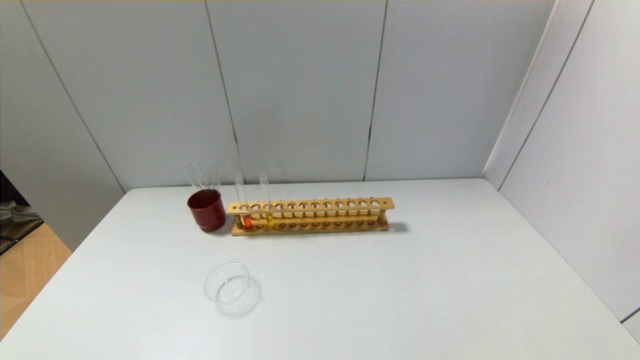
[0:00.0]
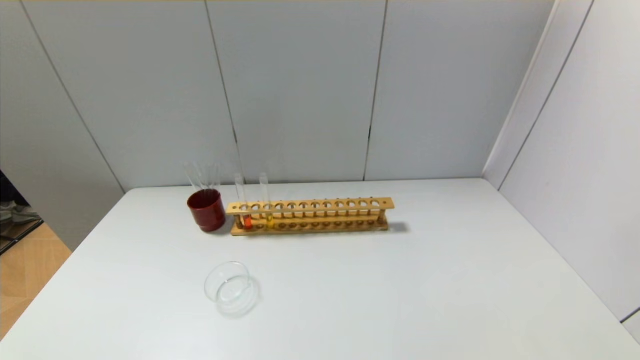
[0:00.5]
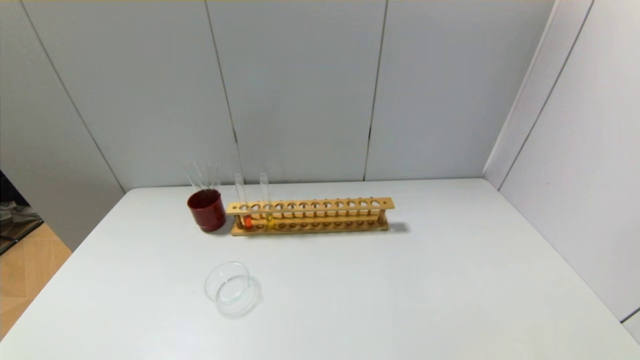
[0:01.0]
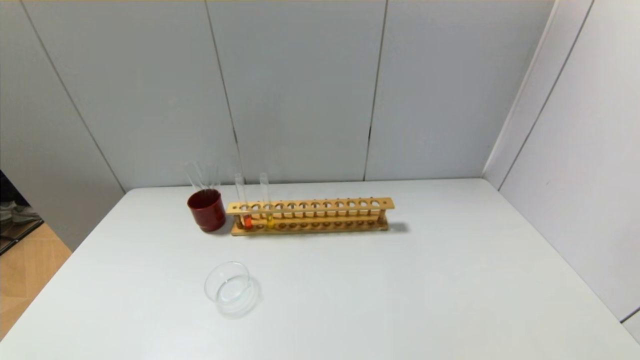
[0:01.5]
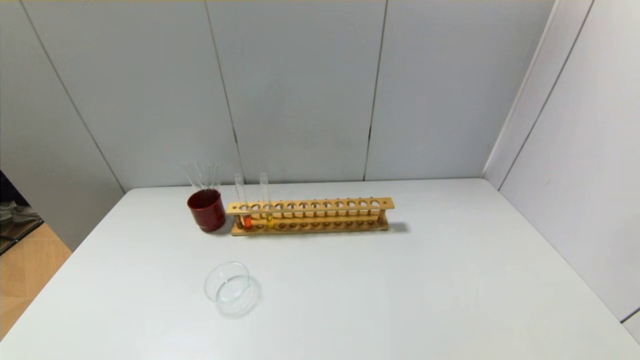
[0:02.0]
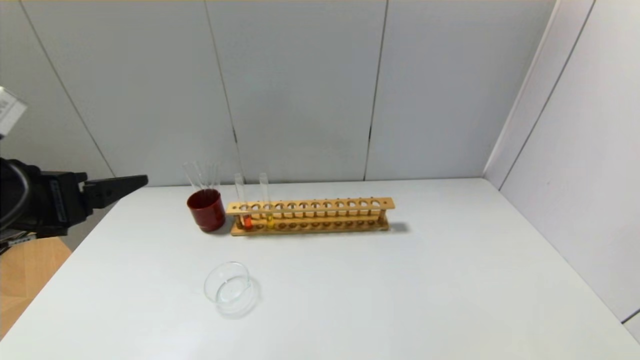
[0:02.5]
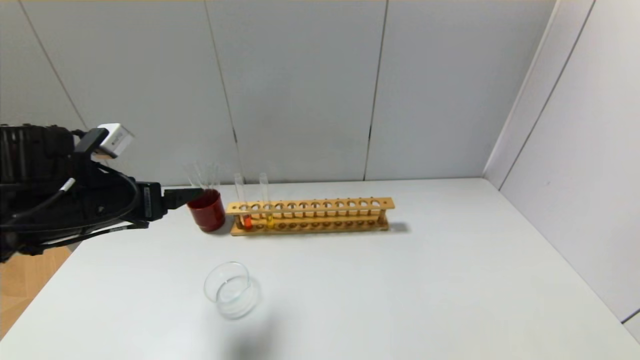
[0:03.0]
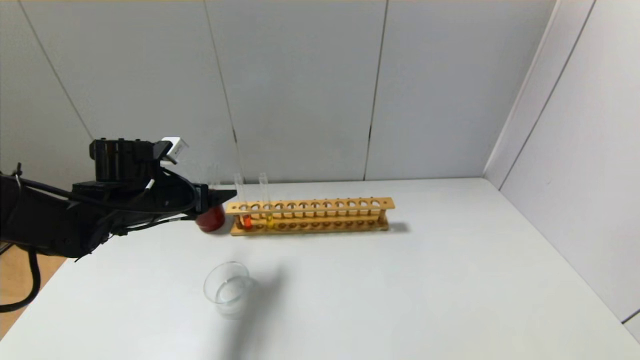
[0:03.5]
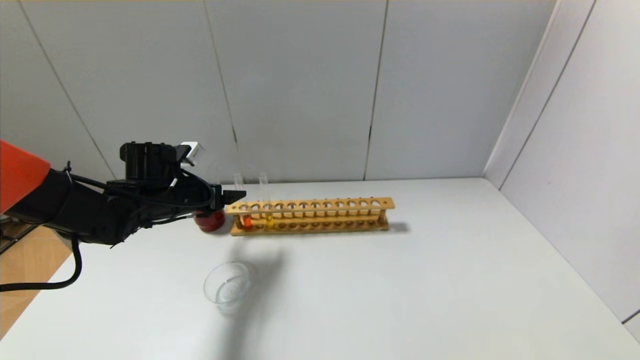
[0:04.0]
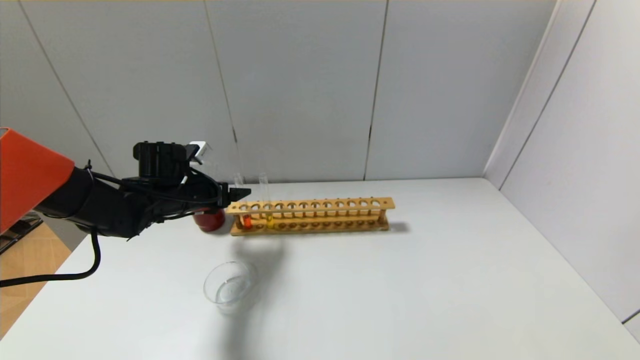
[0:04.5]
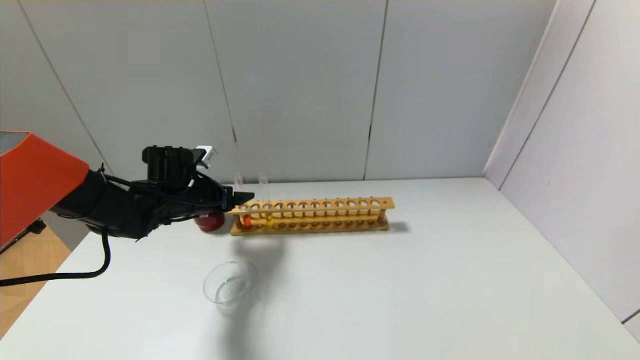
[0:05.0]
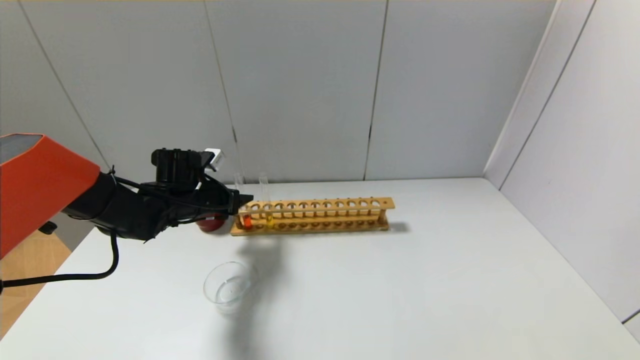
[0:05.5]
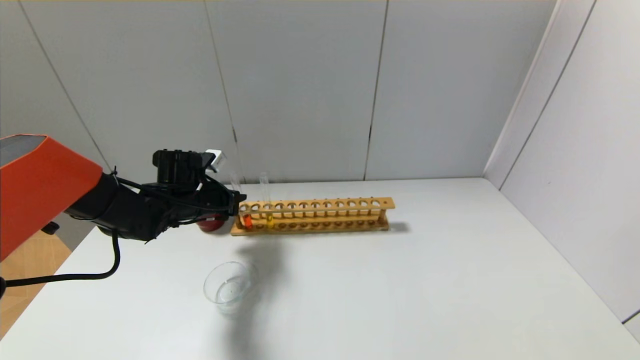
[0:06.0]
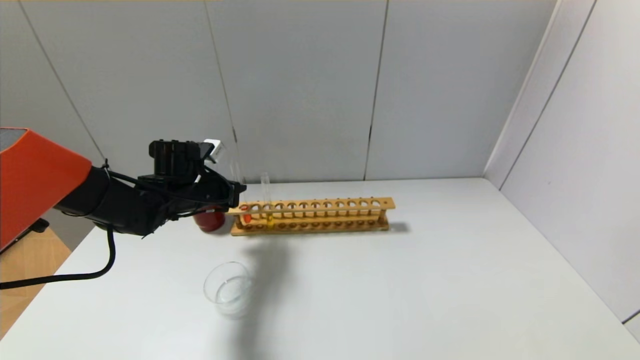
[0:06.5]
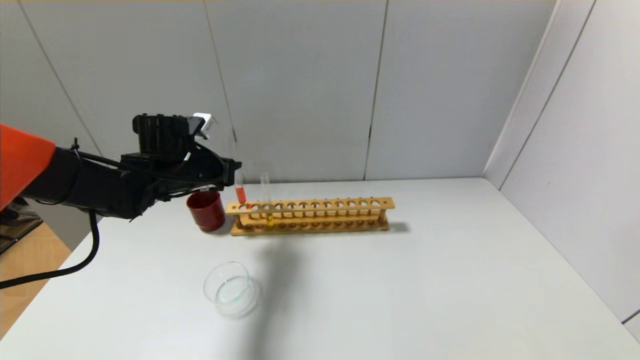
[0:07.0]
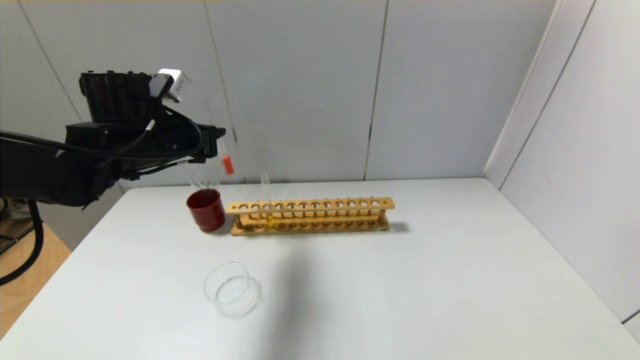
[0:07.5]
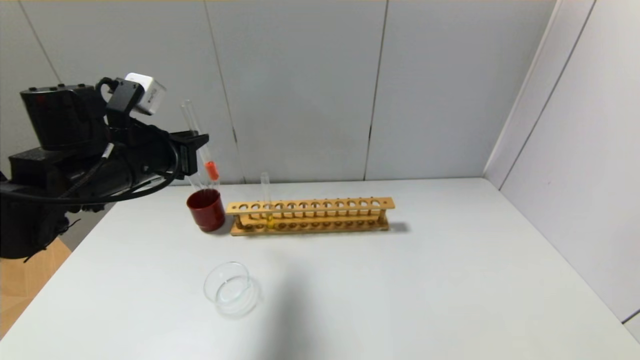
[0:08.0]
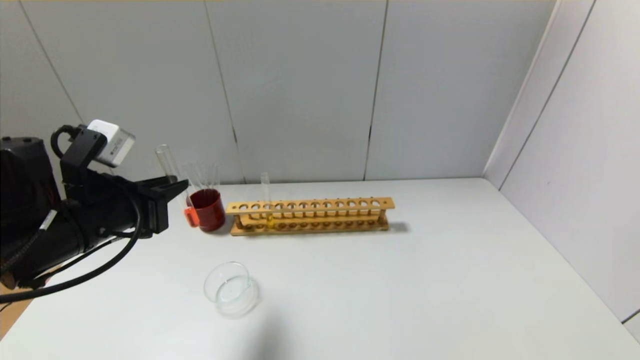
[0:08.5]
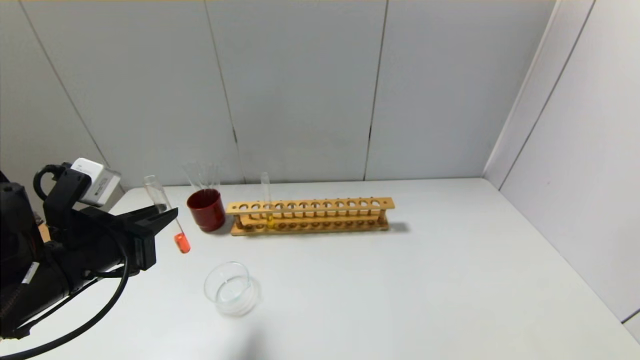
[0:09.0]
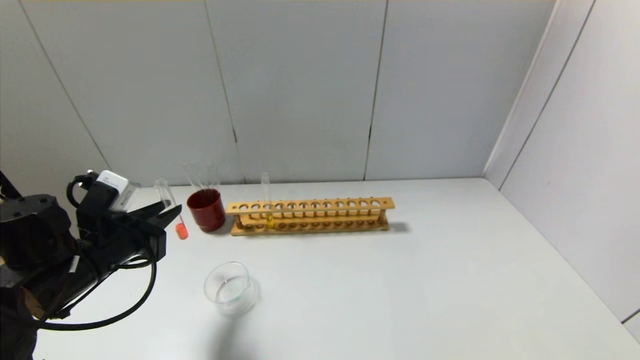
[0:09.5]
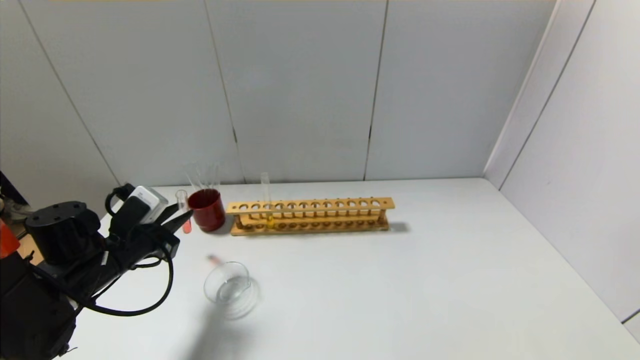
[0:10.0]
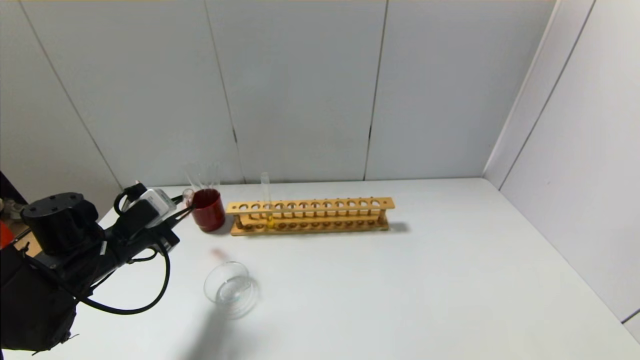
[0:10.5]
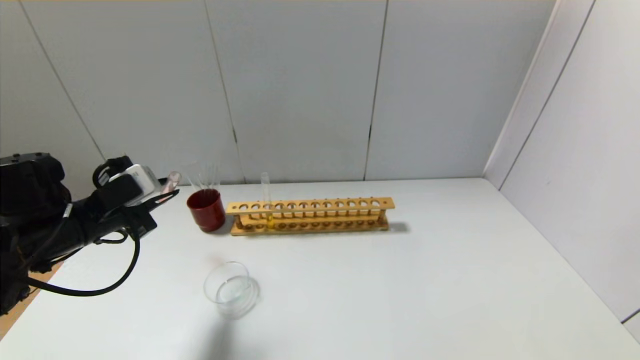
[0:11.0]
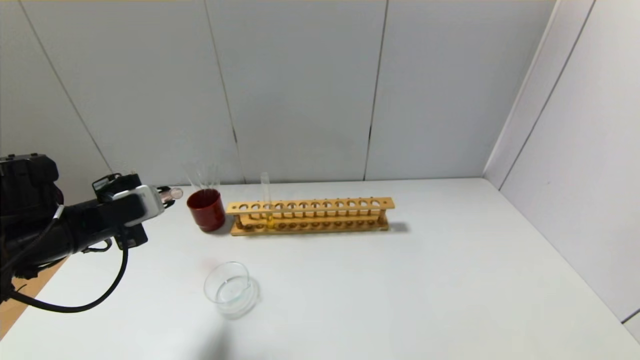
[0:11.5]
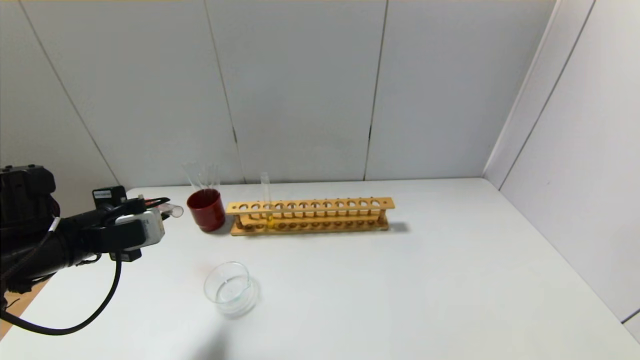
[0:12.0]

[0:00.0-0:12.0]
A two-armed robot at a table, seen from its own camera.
Step, 0.0 to 5.5 s: Grasp the red reagent with the left gripper.
2.0 to 4.0 s: The left gripper moves forward and downward, roughly 35 cm.
4.0 to 6.0 s: The left gripper closes its fingers.
6.0 to 8.0 s: The left gripper moves upward and backward, approximately 15 cm.
8.0 to 10.0 s: The left gripper goes approximately 15 cm downward.
10.0 to 12.0 s: The left gripper travels upward by approximately 5 cm.

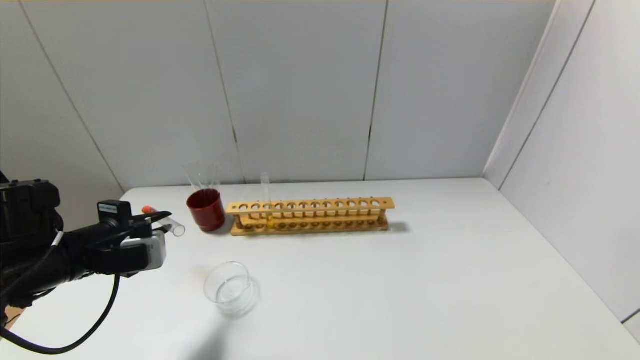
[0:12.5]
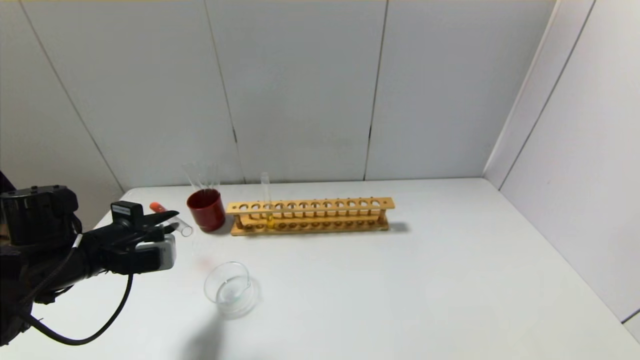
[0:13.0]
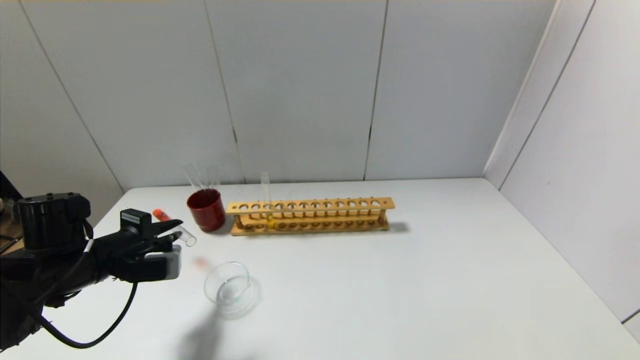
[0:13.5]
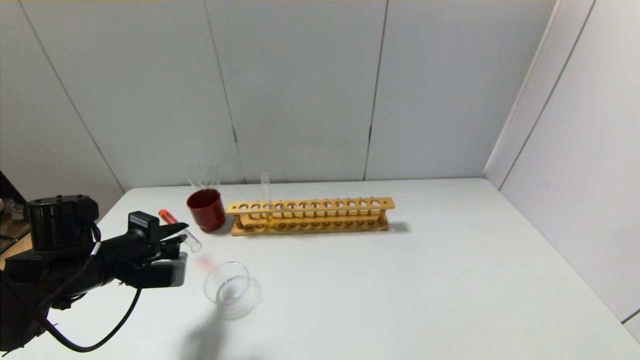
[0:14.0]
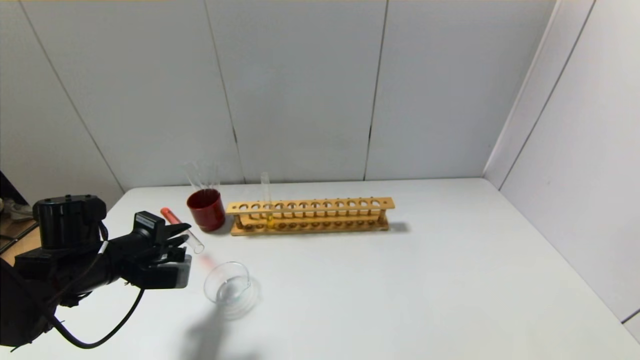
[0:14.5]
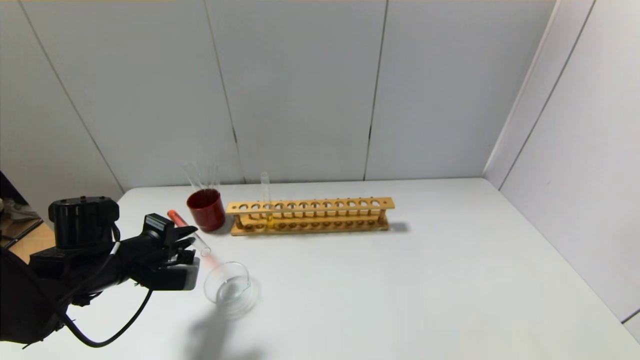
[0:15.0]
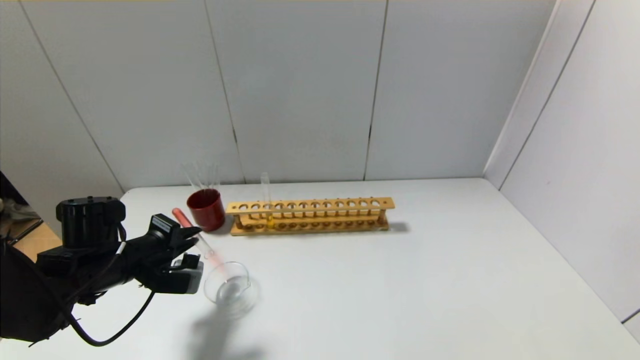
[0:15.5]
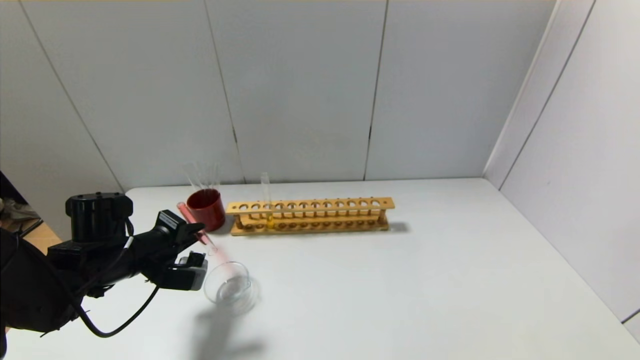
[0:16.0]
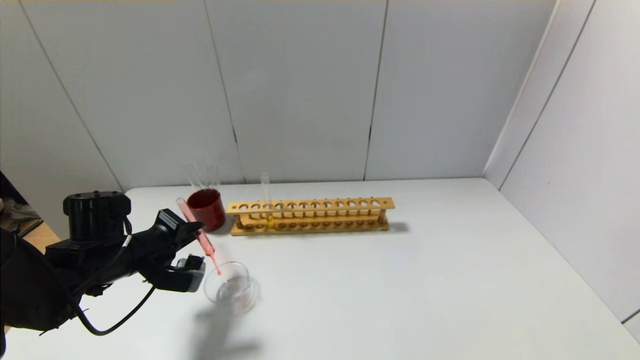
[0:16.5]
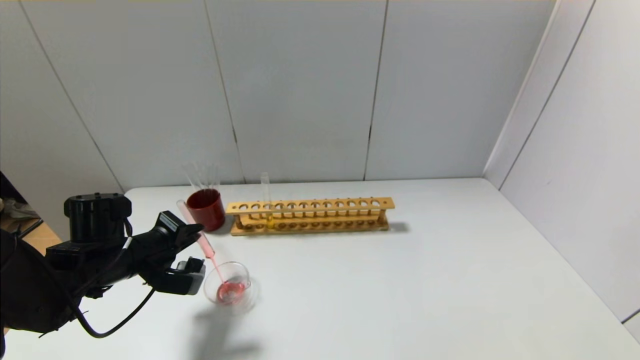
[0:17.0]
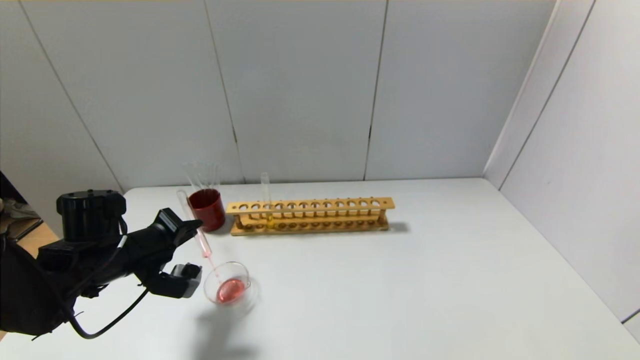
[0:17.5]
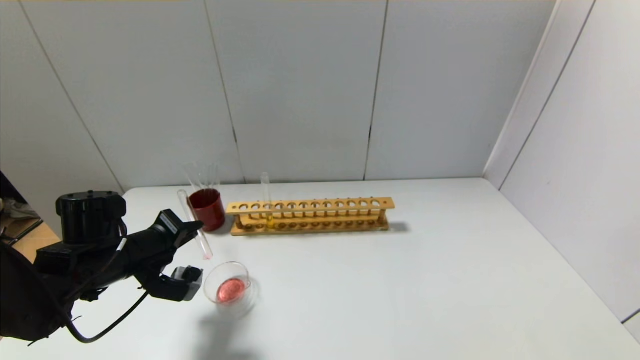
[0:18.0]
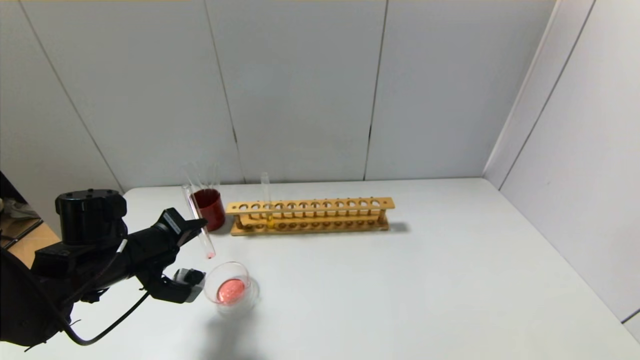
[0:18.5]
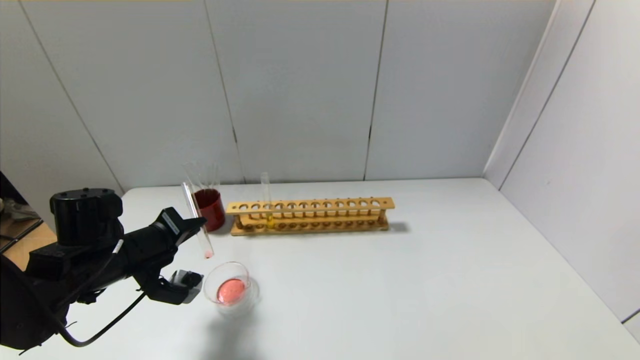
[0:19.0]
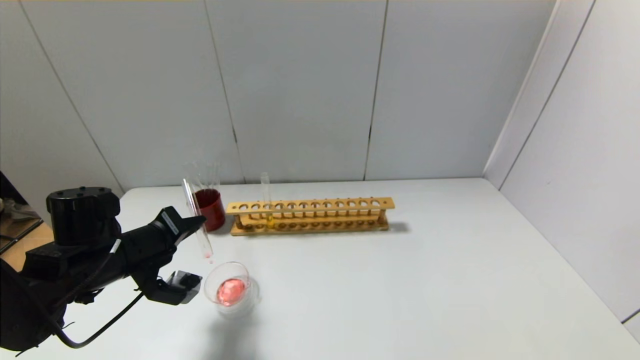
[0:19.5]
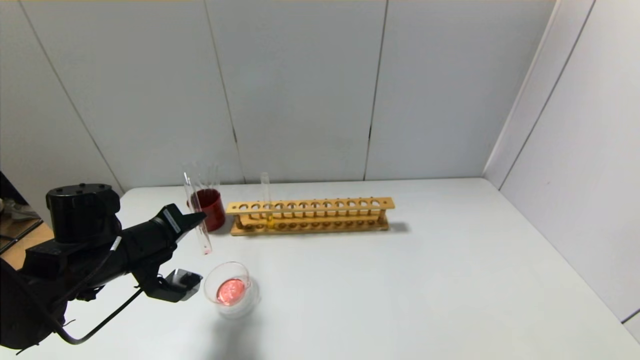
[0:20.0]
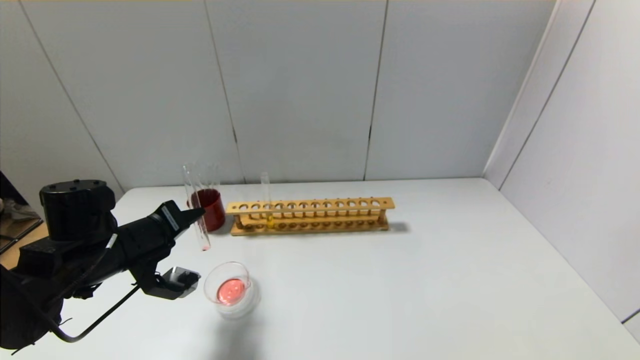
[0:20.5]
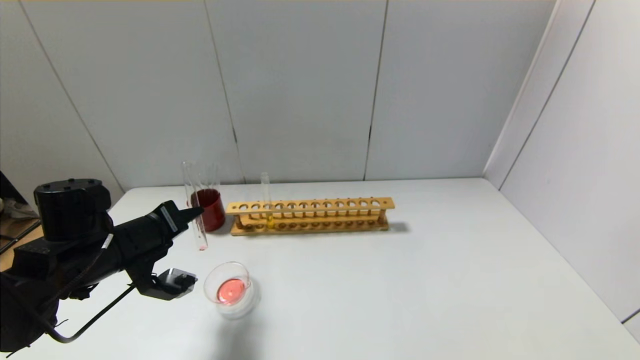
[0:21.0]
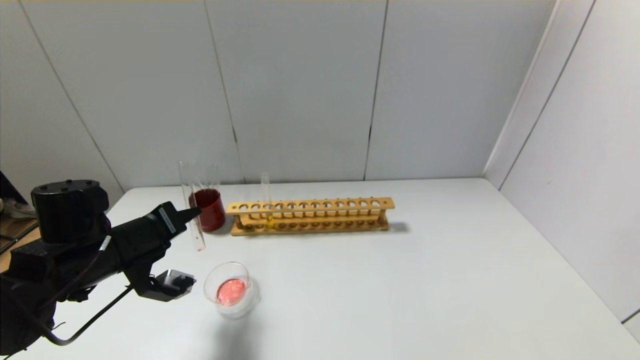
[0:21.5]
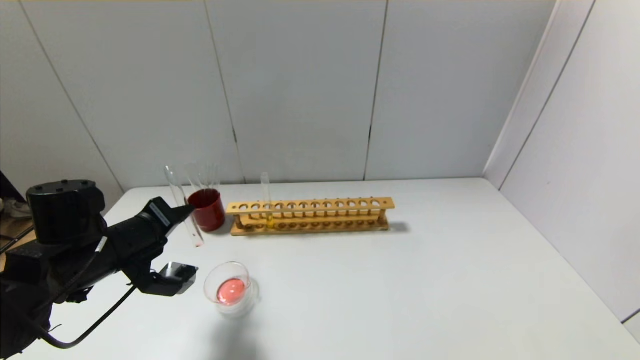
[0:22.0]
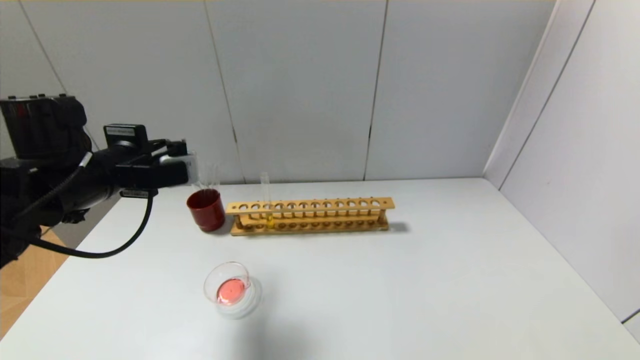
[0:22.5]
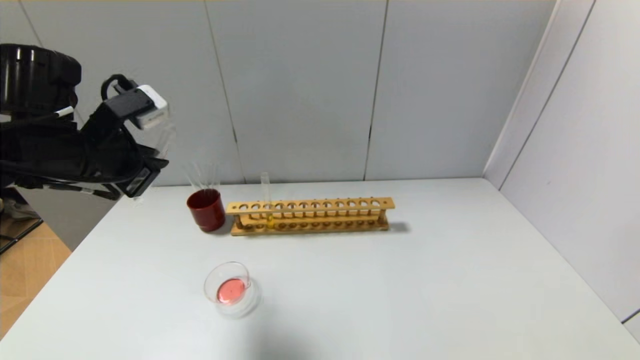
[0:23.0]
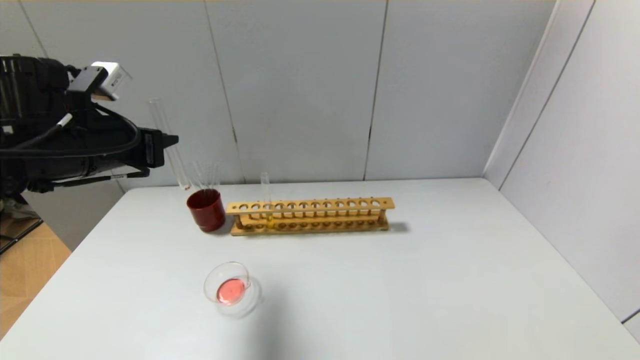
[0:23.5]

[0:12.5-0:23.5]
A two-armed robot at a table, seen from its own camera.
Step, 12.5 to 22.0 s: Pour the red reagent into the graduated cylinder with the left gripper.
12.5 to 14.5 s: The left gripper ends up approximately 5 cm from where it was.
14.5 to 16.0 s: The grippers stay close to where they were, moving slightly.
16.0 to 18.0 s: There are only small adjustments of the grippers.
18.0 to 20.0 s: The grippers move only a little.
20.0 to 21.5 s: The grippers stay close to where they were, moving slightly.
21.5 to 23.5 s: The left gripper travels upward by roughly 15 cm.
